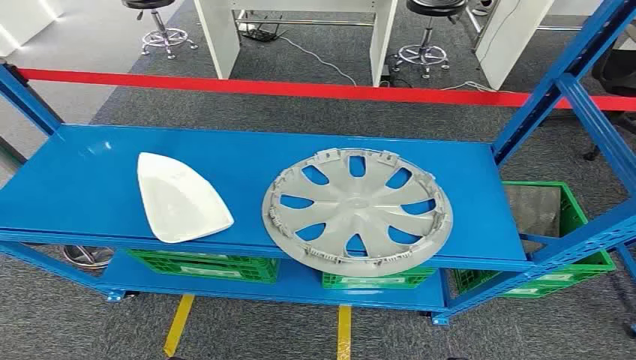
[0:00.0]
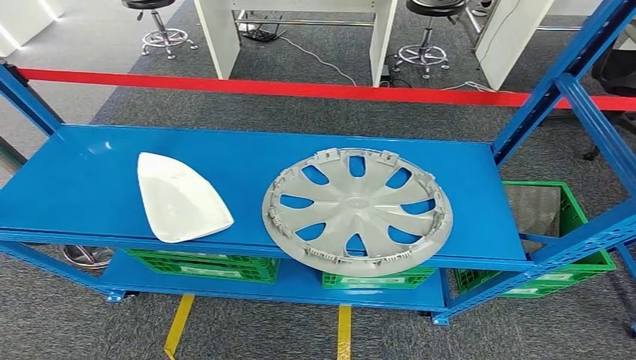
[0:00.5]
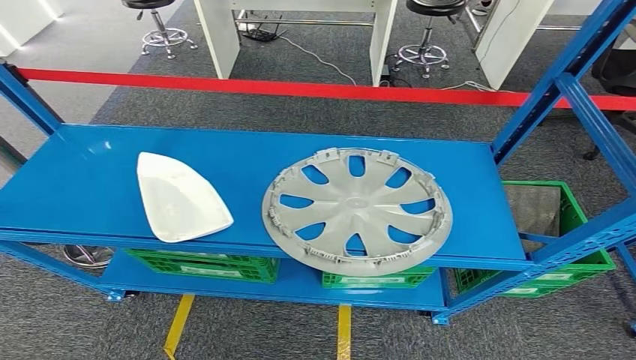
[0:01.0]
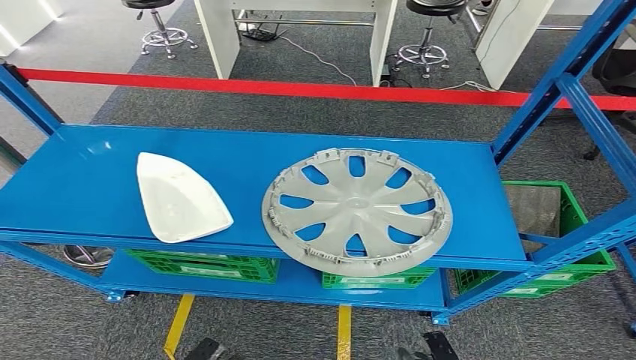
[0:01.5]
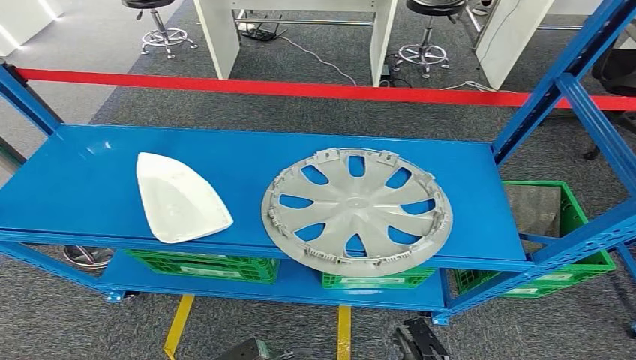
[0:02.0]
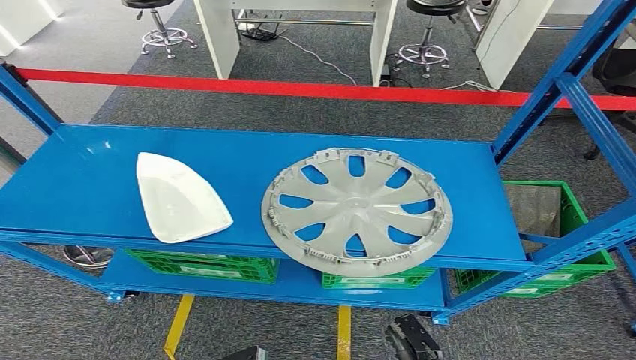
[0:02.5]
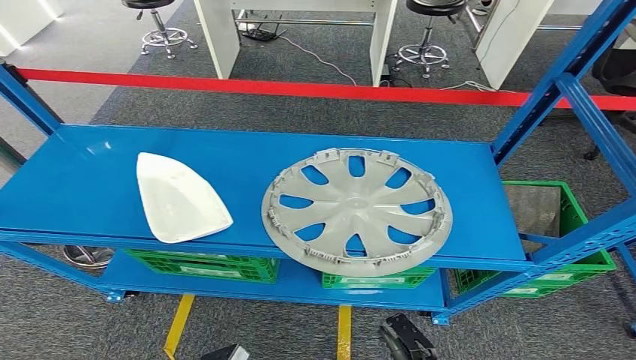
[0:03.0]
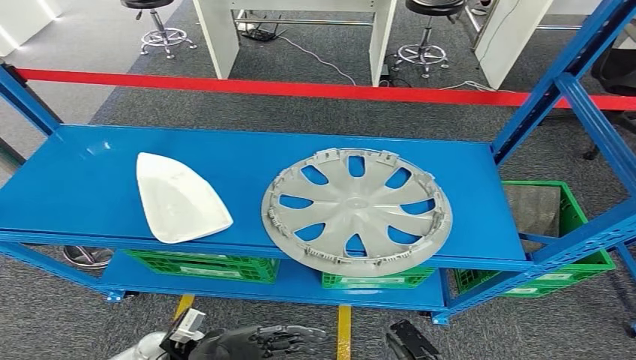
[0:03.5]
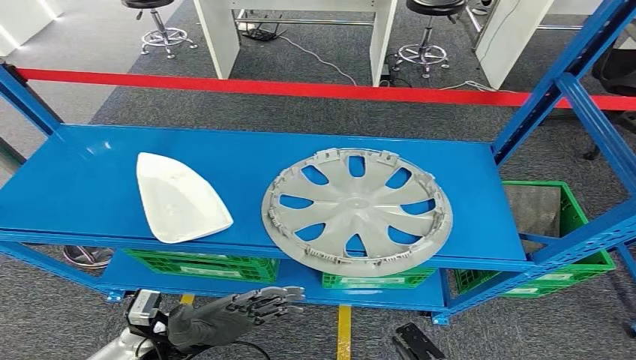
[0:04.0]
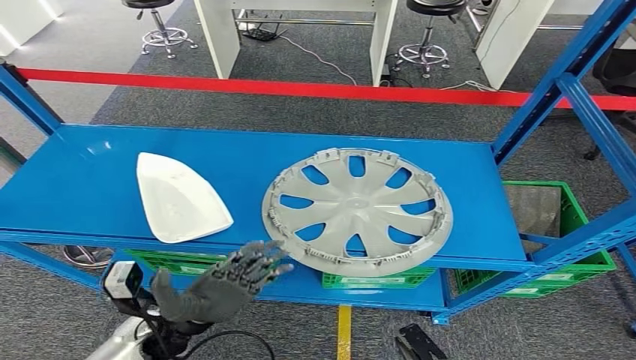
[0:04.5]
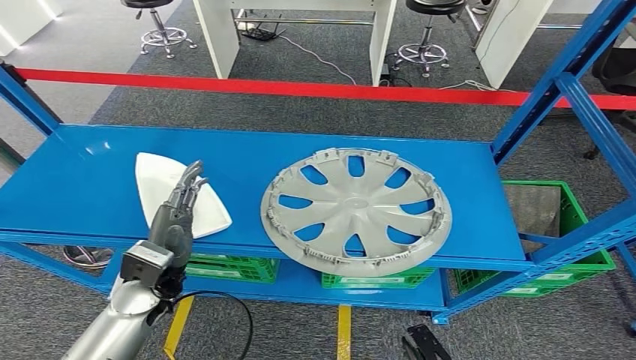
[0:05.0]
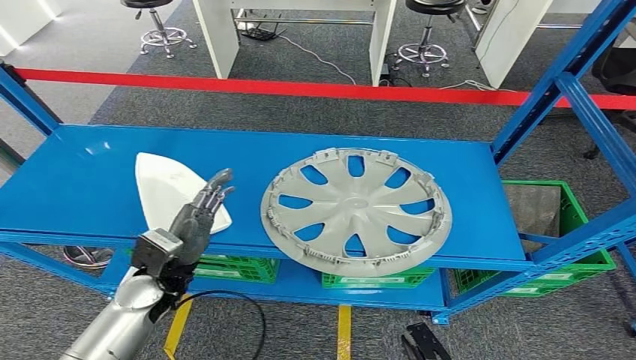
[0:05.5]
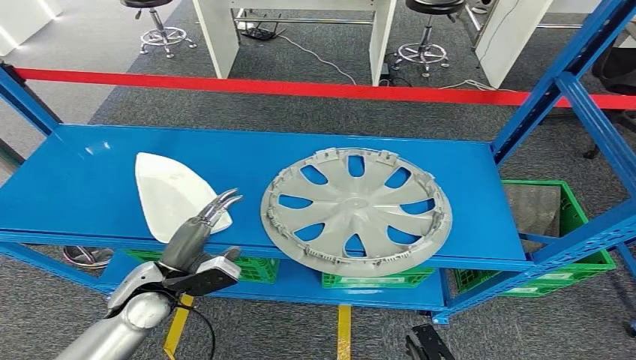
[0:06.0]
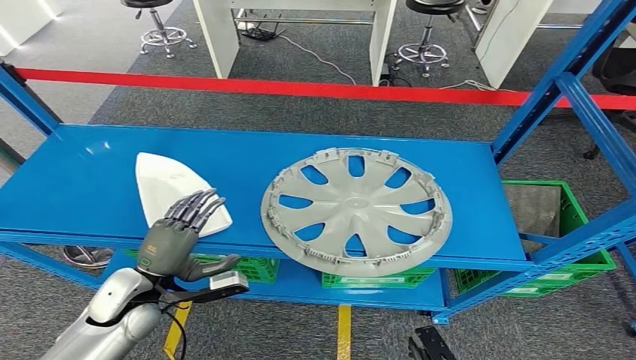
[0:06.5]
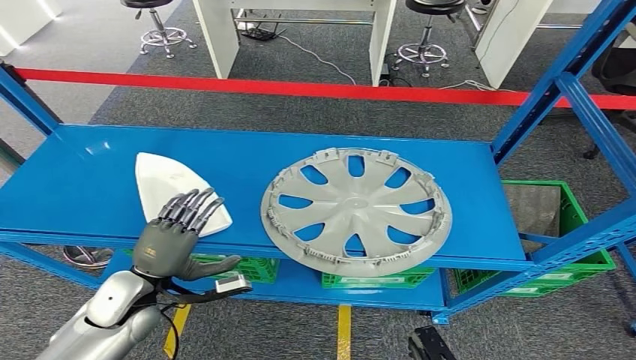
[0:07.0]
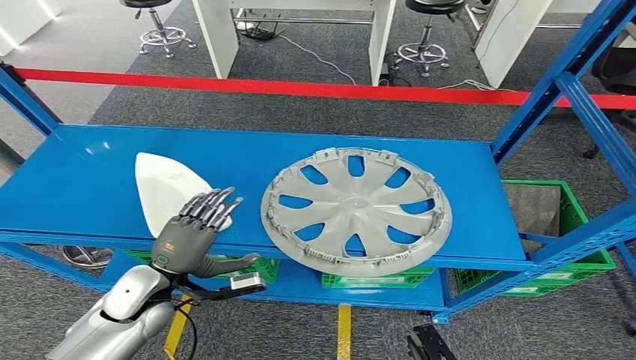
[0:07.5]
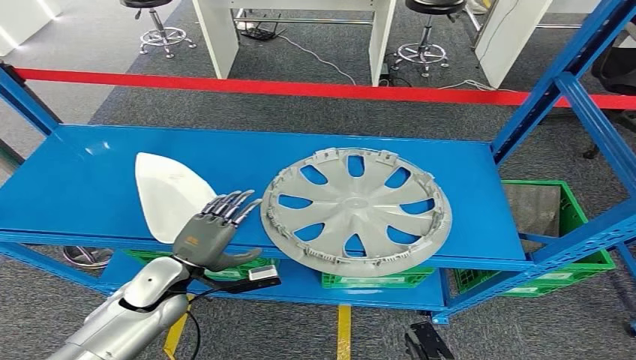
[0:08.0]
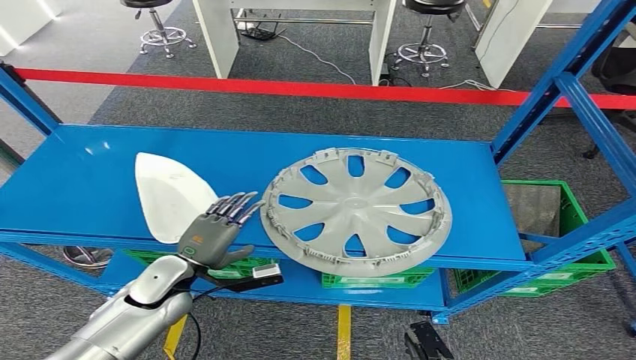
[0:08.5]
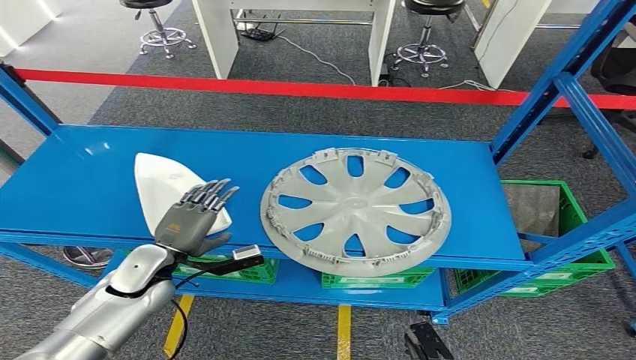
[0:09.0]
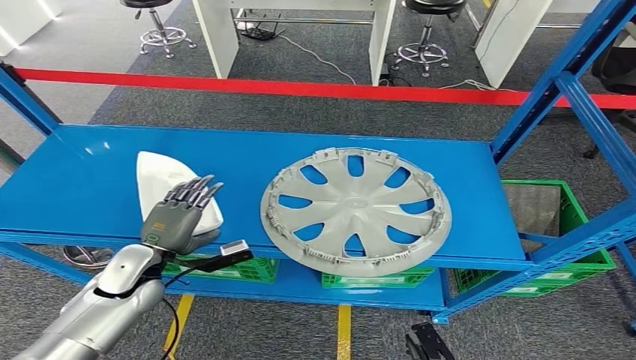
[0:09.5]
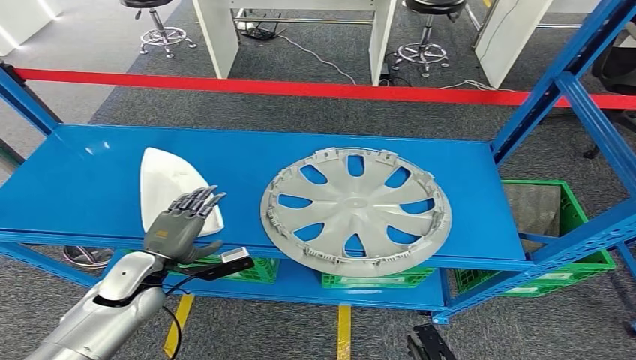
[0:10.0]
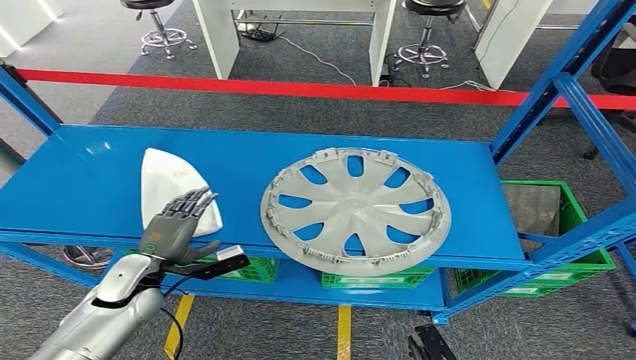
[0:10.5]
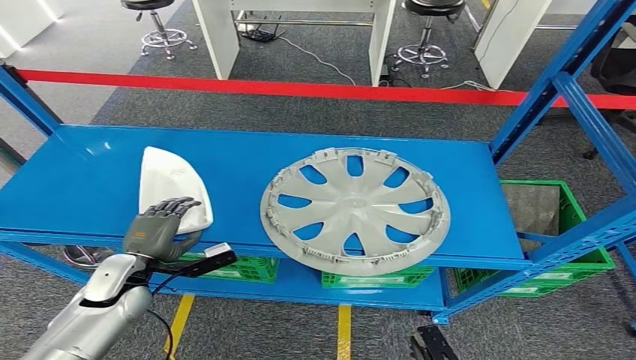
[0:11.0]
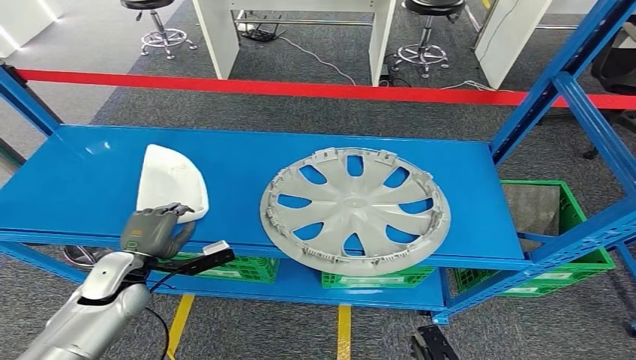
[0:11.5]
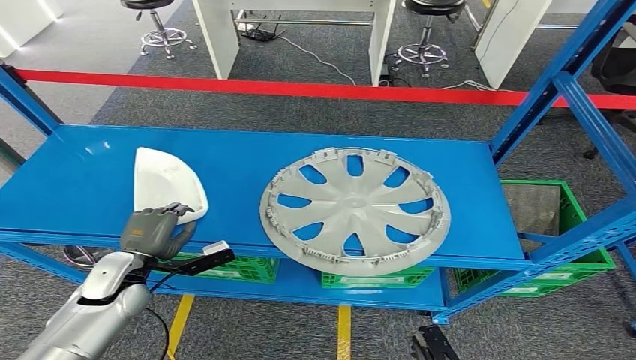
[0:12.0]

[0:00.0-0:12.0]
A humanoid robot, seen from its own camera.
0:02.0 to 0:04.0: The left hand travels upward and forward by some 15 cm.
0:04.0 to 0:06.0: The left hand moves forward and upward, some 10 cm.
0:08.0 to 0:10.0: The hands make only small movements.
0:10.0 to 0:12.0: The hands move only a little.

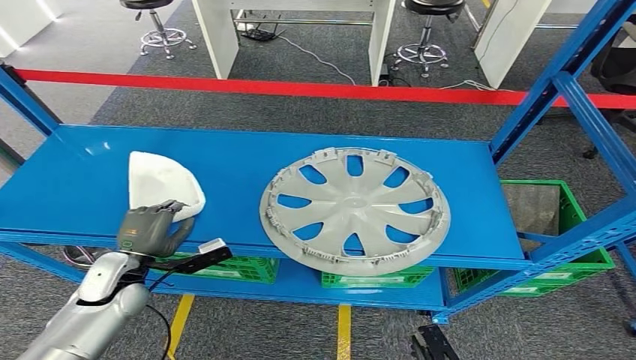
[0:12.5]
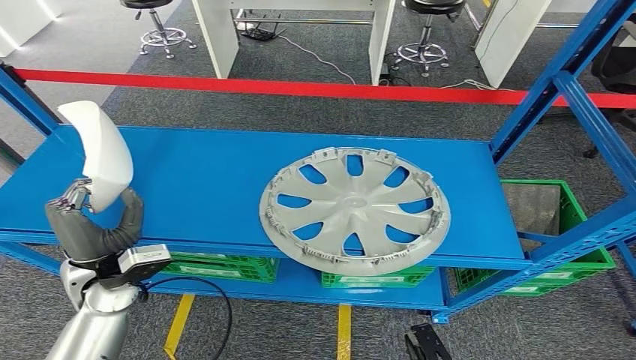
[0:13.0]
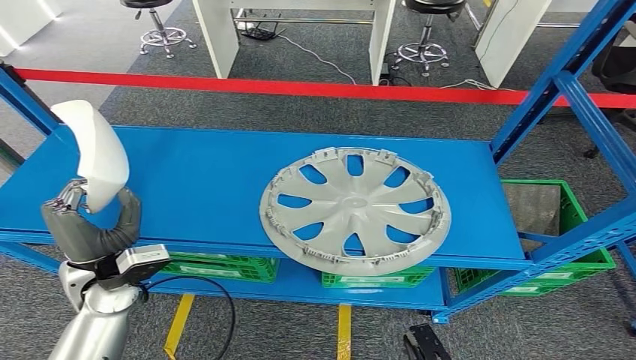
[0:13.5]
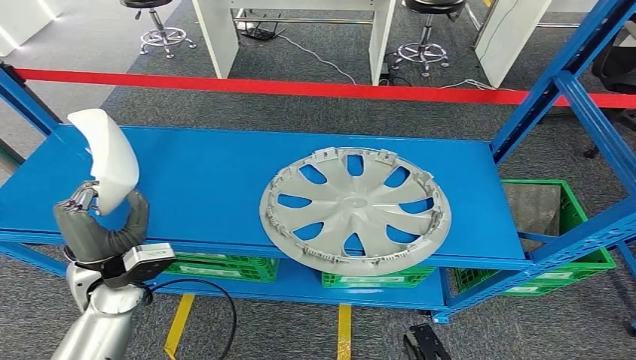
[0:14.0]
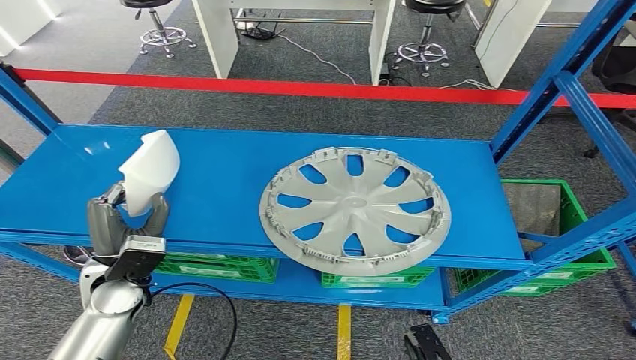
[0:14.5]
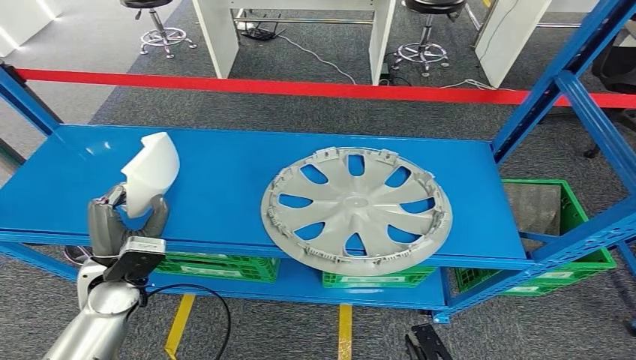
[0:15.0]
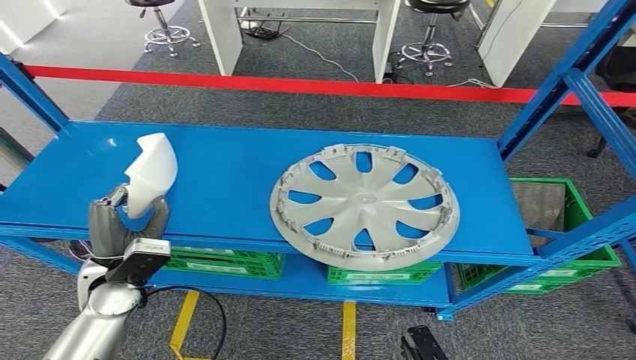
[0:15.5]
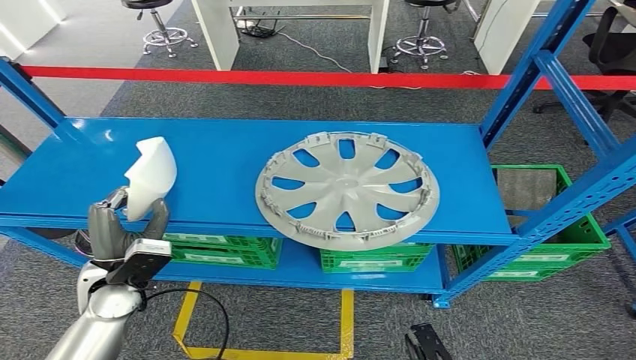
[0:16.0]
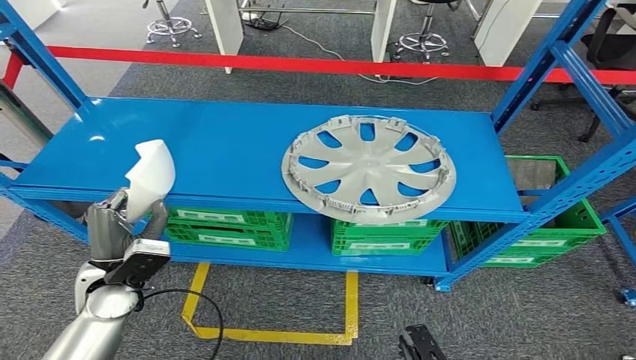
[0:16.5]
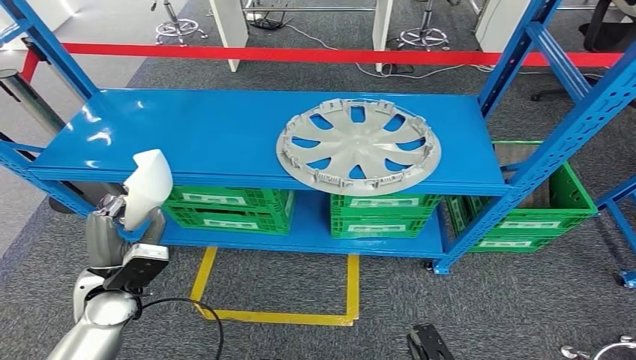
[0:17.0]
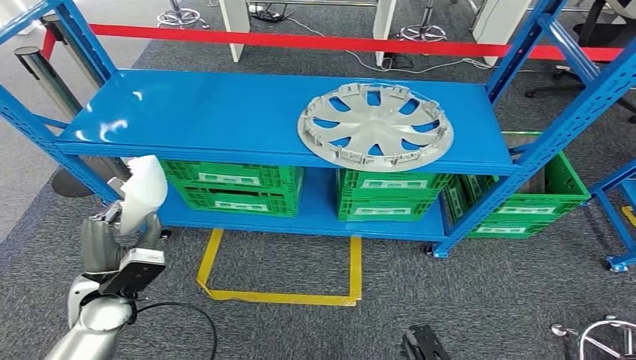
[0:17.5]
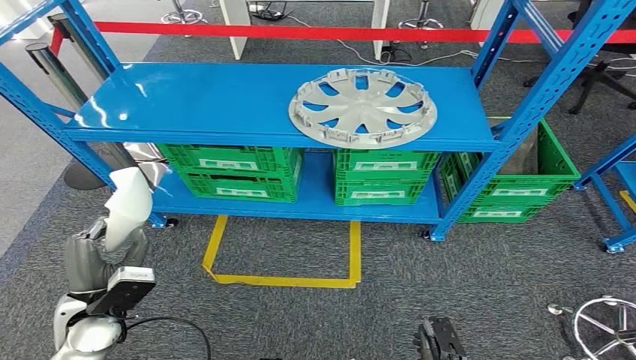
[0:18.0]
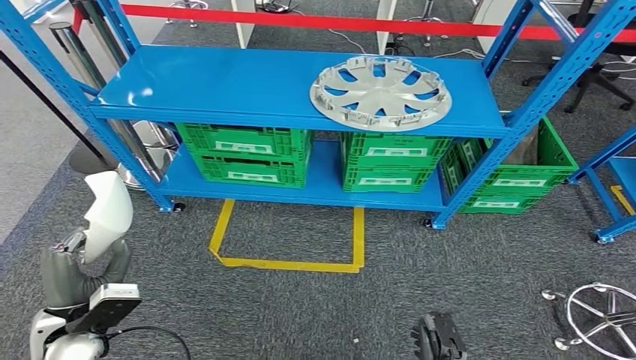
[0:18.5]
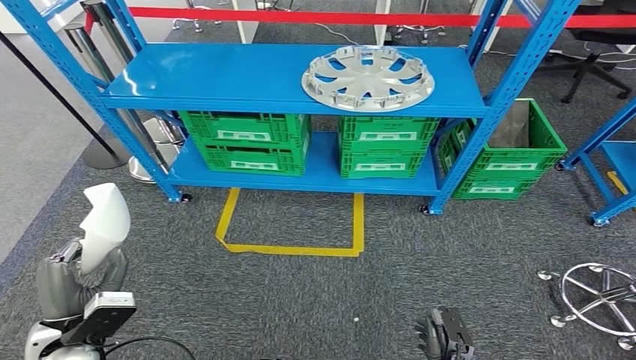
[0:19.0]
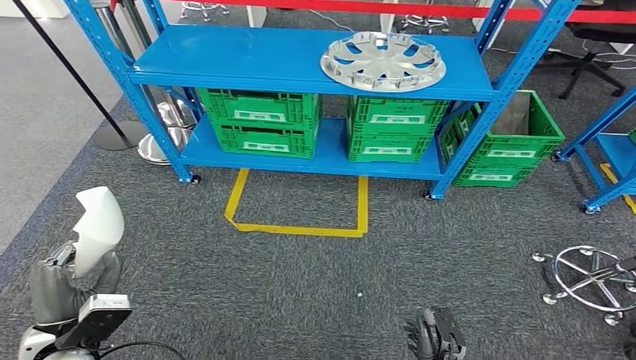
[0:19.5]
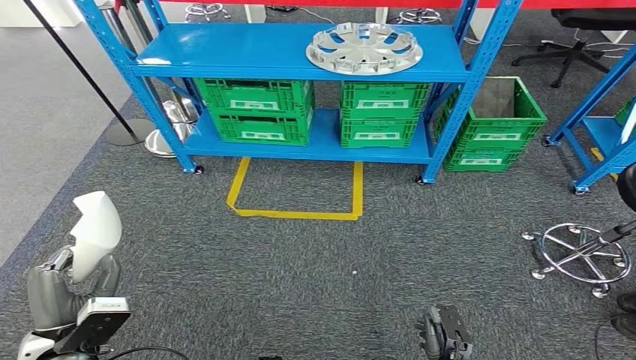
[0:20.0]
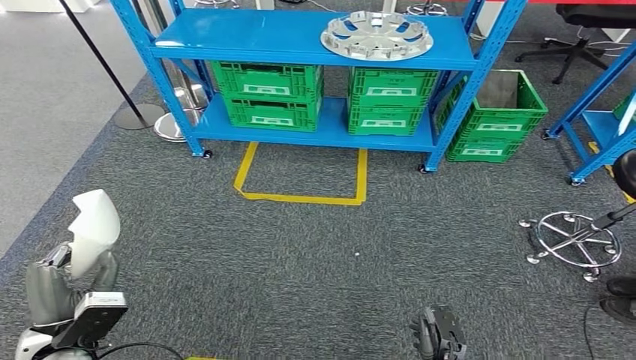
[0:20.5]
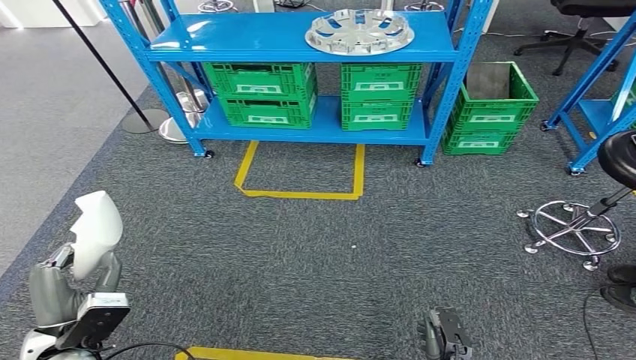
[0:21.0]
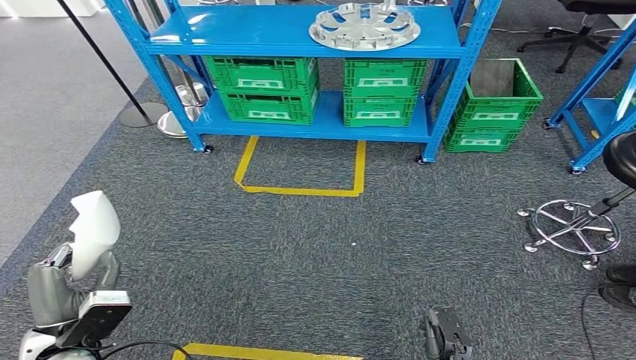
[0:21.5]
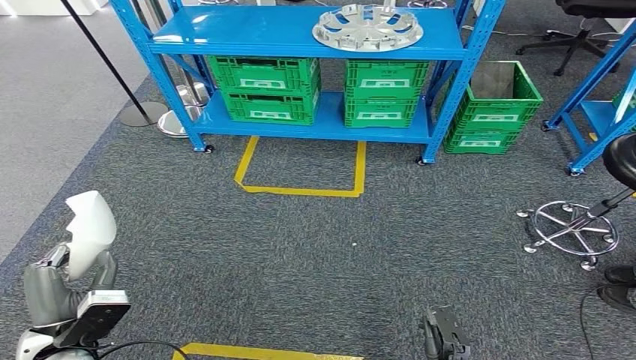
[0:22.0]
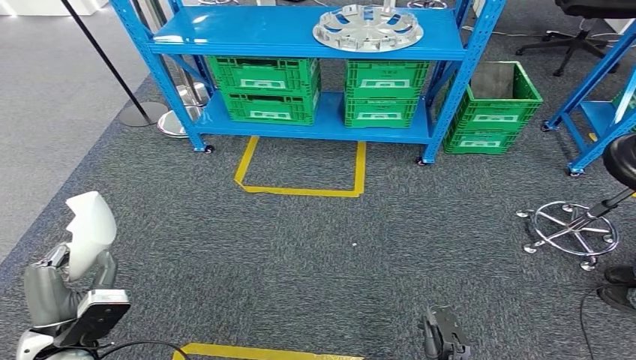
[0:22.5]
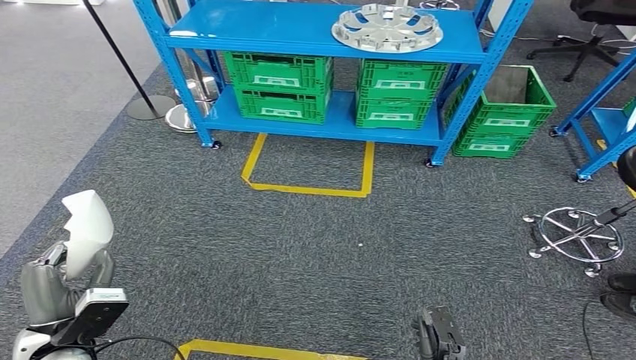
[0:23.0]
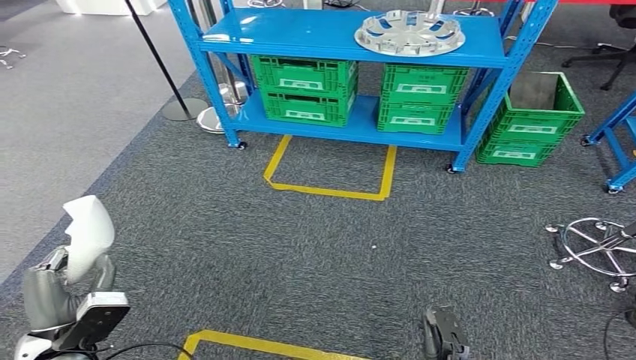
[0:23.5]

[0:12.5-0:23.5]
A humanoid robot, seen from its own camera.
Step, 0:12.5 to 0:17.5: Pick up the small parts from the shelf.
0:12.5 to 0:14.5: The left hand shifts by some 5 cm.
